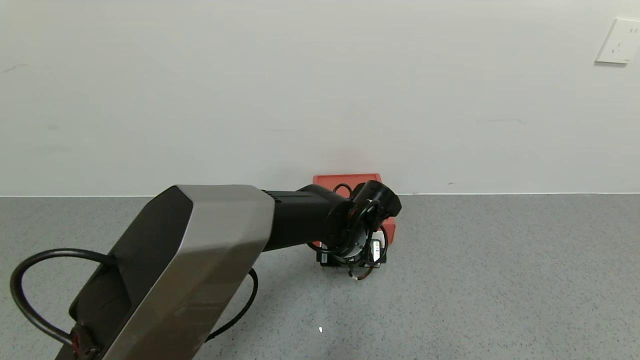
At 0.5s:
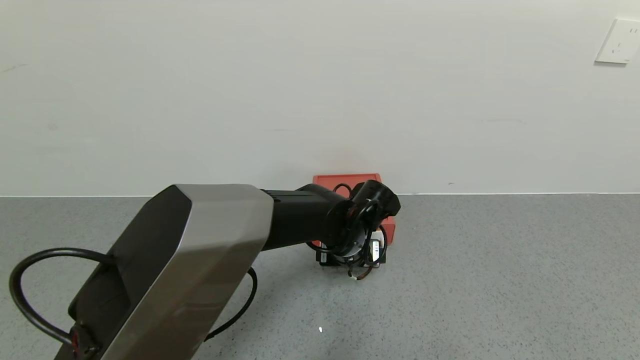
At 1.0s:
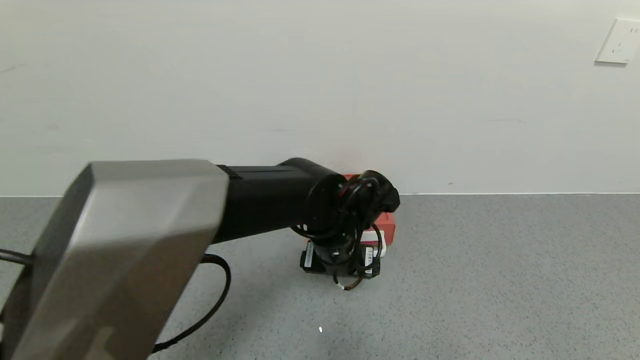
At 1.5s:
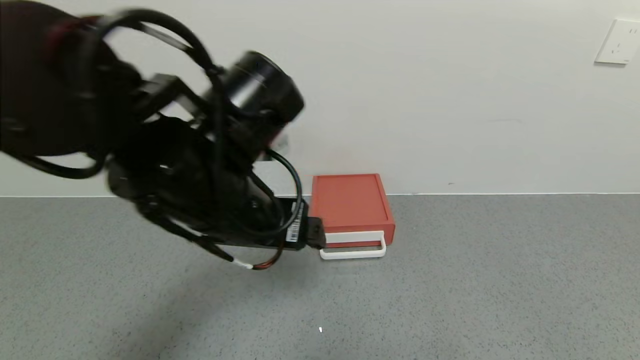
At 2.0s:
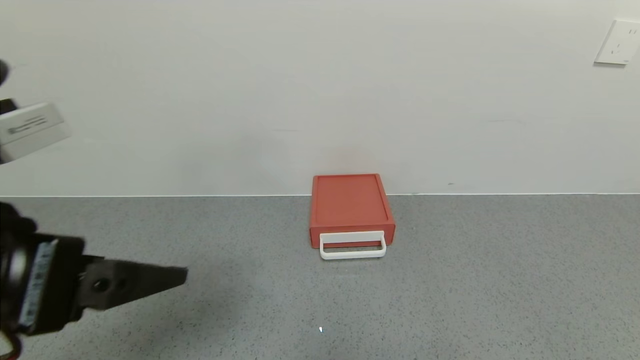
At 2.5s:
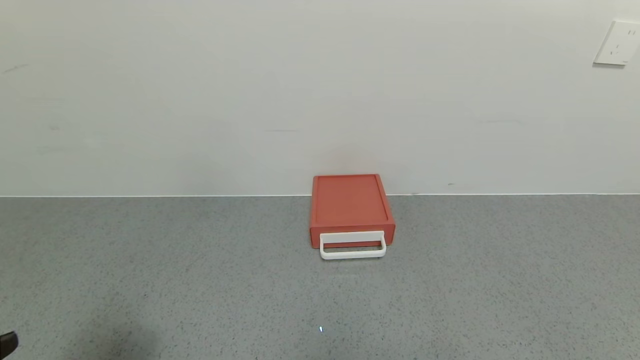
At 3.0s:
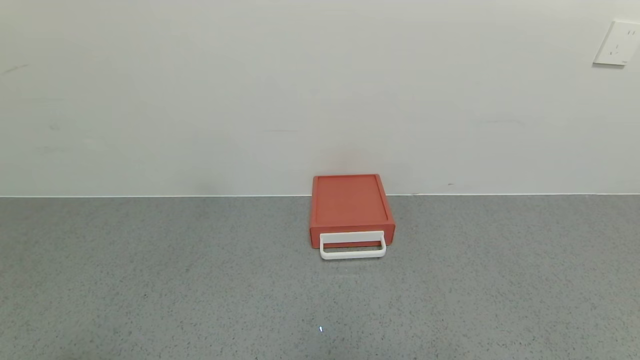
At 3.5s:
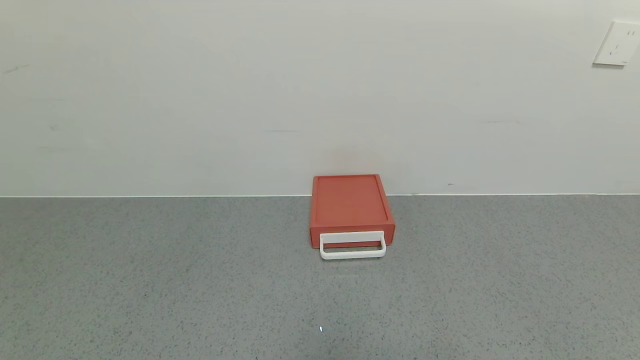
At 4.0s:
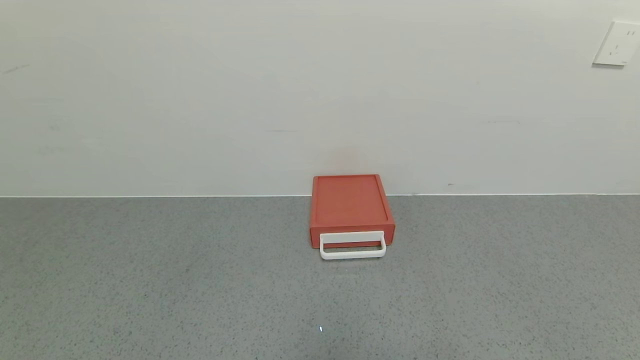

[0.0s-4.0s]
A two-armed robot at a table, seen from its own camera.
Task of the whole recording: use the gripper to open the drawer and close the red drawer.
0.0s to 2.0s: The left gripper shifts about 40 cm backward, to the left and upward.
2.0s to 4.0s: The left gripper heads downward, backward and to the left, covering approximately 25 cm.

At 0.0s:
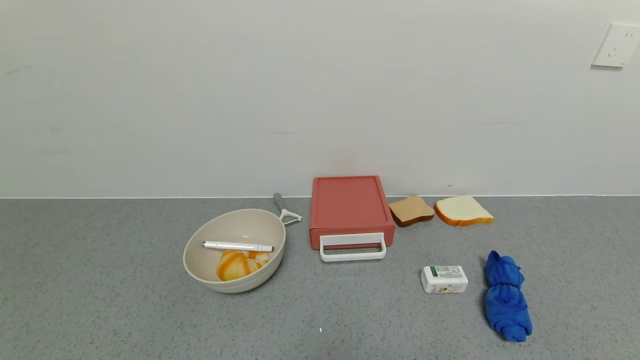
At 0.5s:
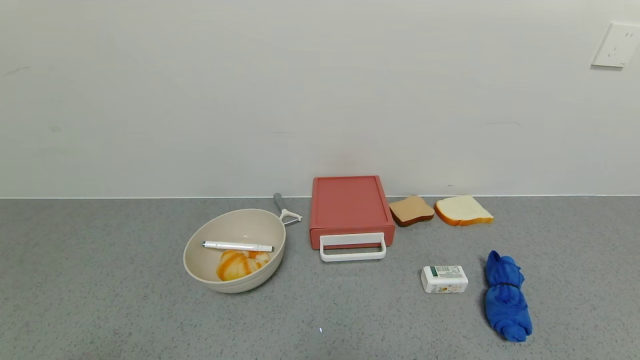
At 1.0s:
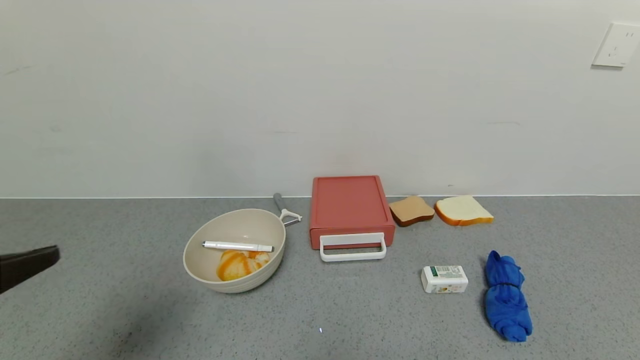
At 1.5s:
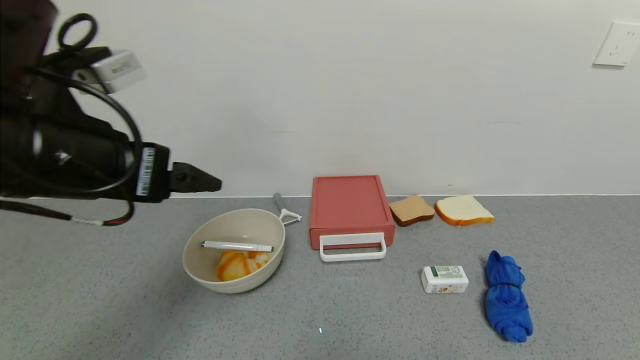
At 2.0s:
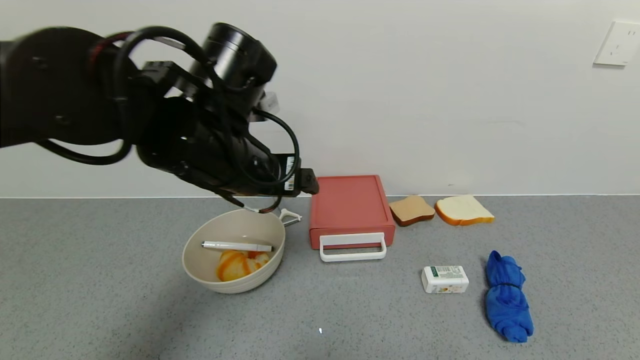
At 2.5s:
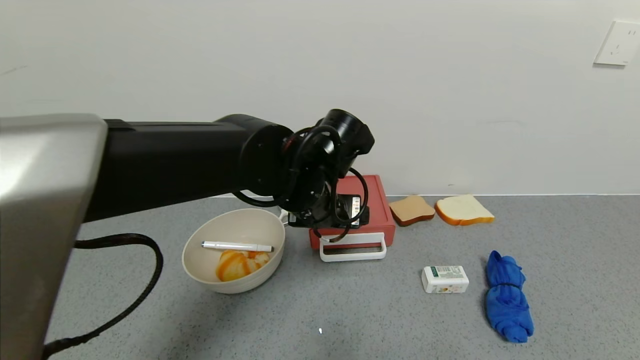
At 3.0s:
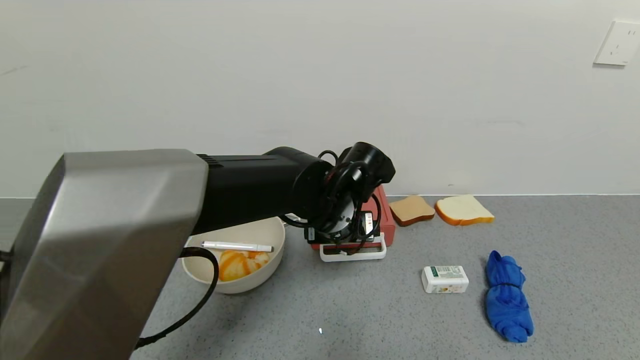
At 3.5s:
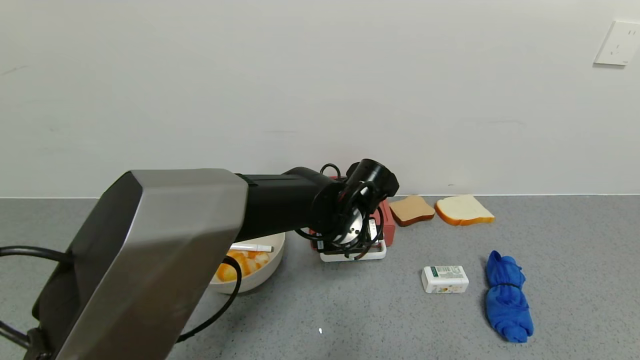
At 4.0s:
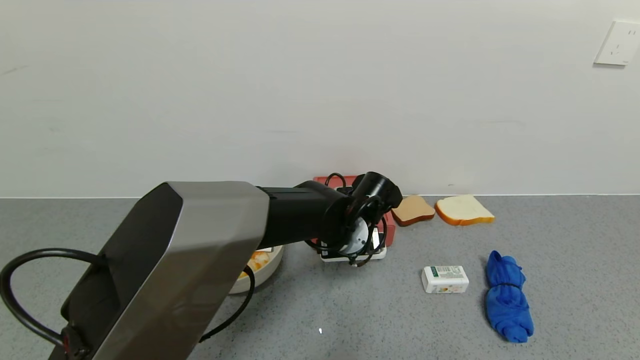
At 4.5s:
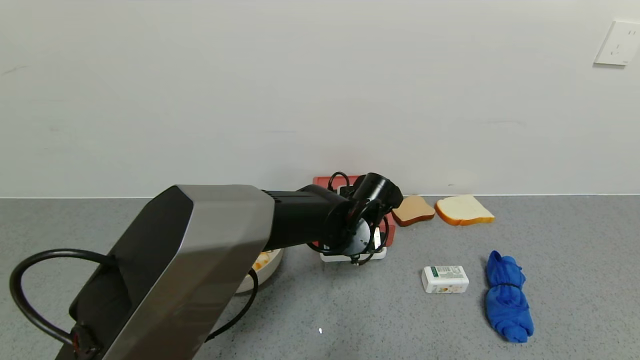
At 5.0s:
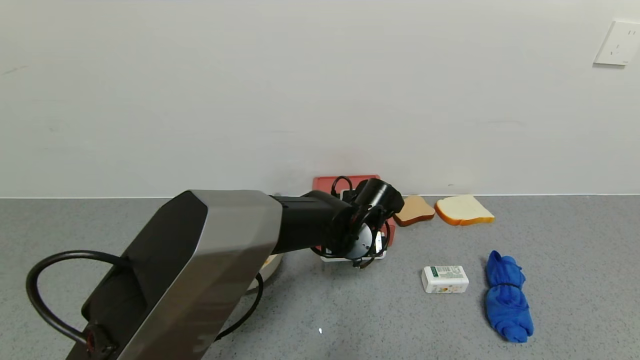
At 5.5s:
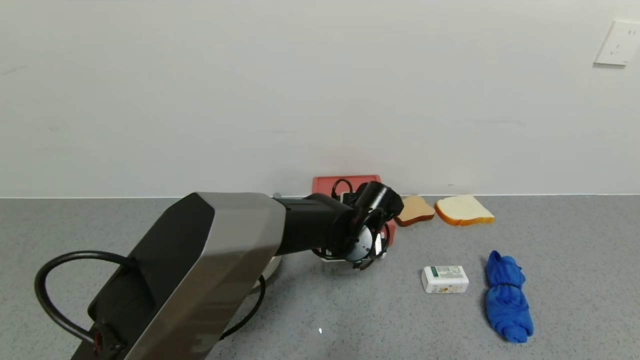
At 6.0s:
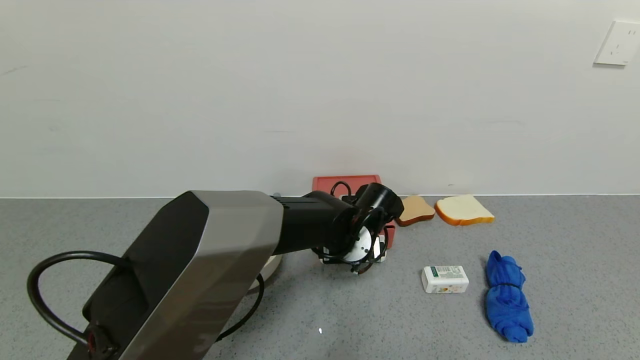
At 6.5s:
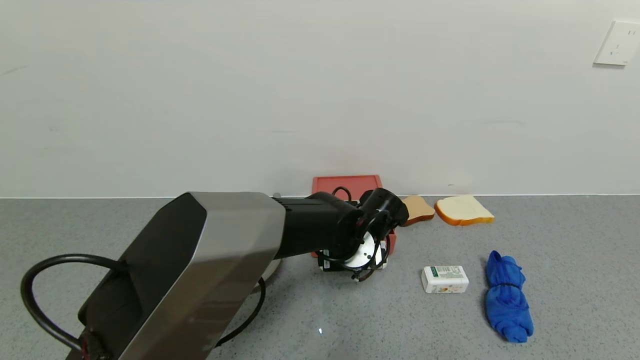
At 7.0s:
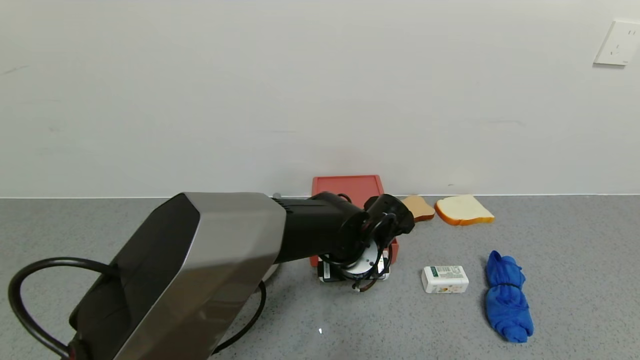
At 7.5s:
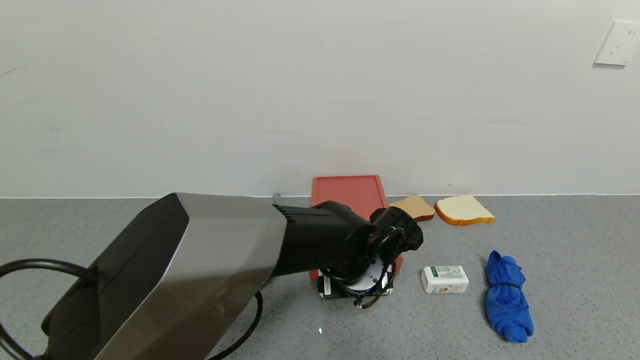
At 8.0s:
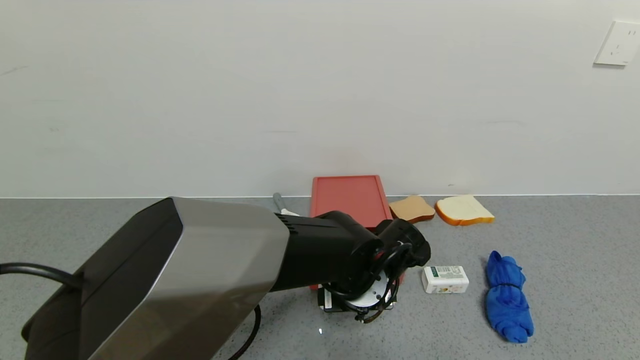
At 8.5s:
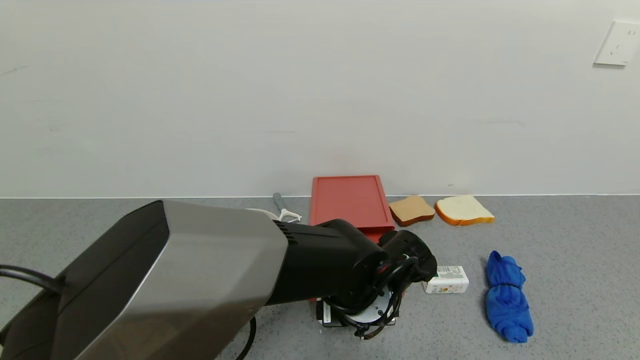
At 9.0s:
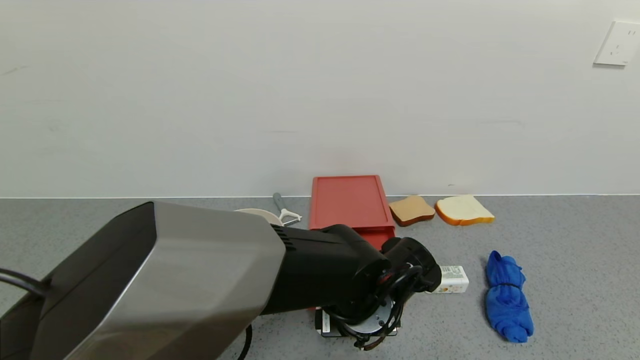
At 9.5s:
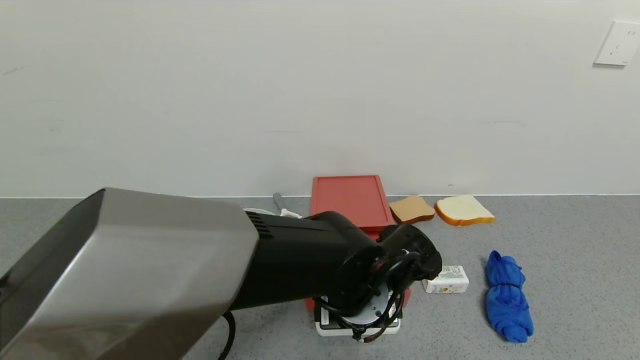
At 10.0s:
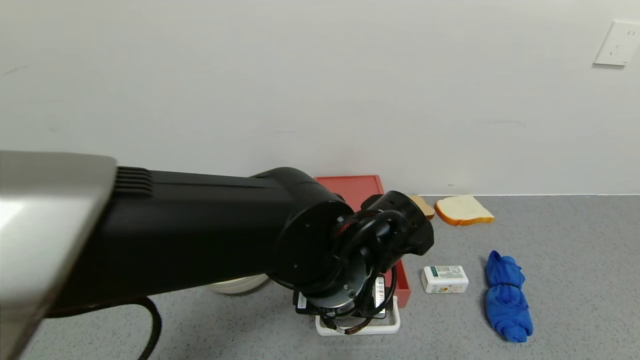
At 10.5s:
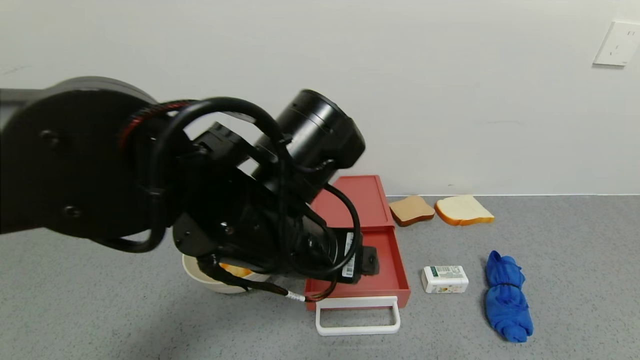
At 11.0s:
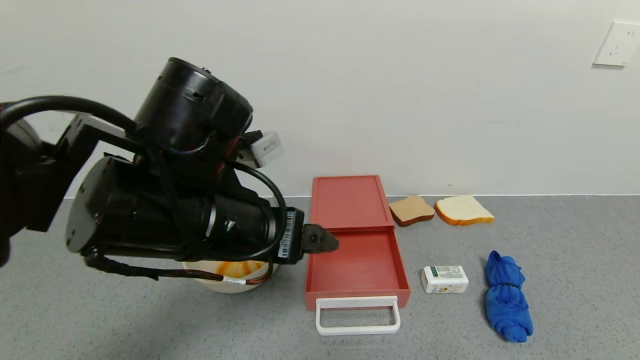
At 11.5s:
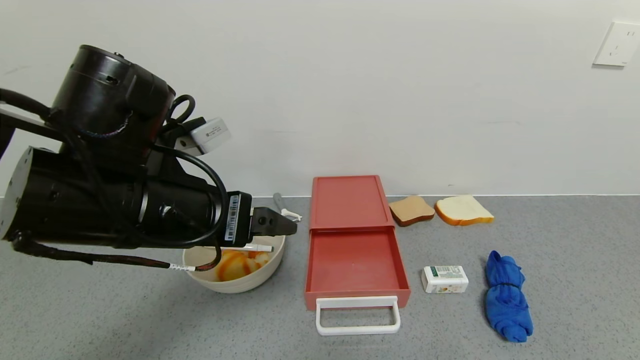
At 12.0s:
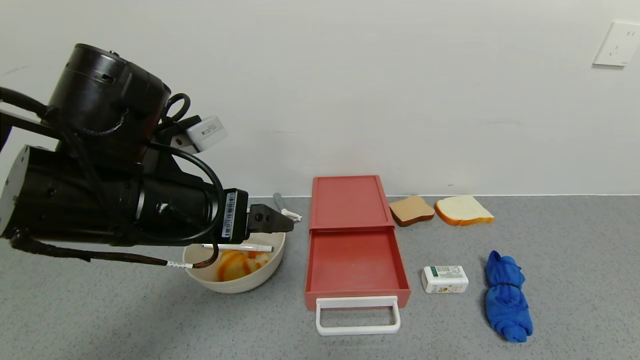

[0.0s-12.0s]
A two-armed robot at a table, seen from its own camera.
Task of the whole recording: use the gripper to open the drawer and close the red drawer.
Step, 0.0s to 10.0s: Open the red drawer with left gripper.
0.0s to 2.0s: The left gripper is displaced forward, upward and to the right by about 40 cm.
2.0s to 4.0s: The left gripper goes about 20 cm downward, to the right and forward.
4.0s to 6.0s: The grippers stay close to where they were, moving slightly.
6.0s to 8.0s: The left gripper travels backward by roughly 10 cm.
8.0s to 10.0s: The left gripper heads upward, covering about 10 cm.
10.0s to 12.0s: The left gripper moves to the left and upward, roughly 20 cm.

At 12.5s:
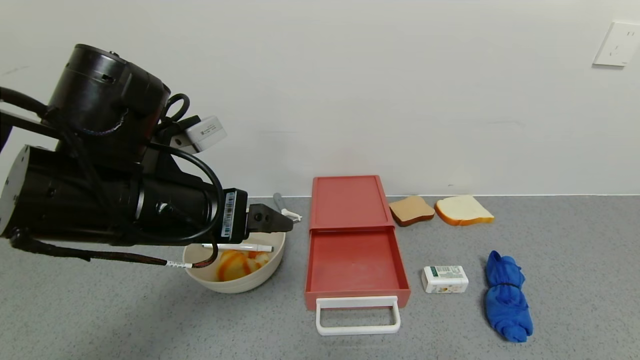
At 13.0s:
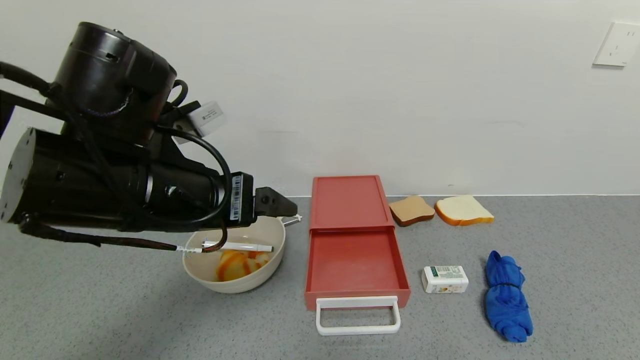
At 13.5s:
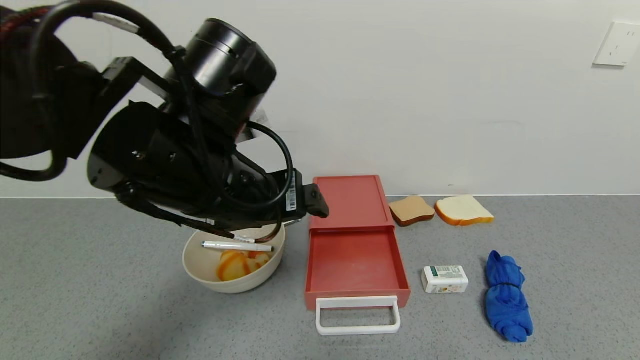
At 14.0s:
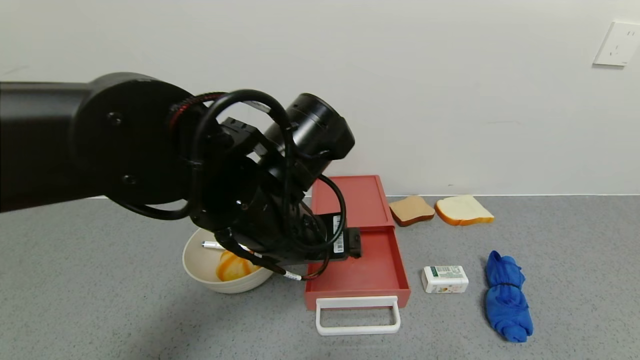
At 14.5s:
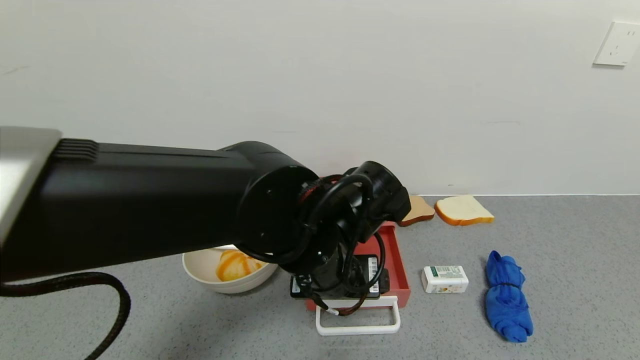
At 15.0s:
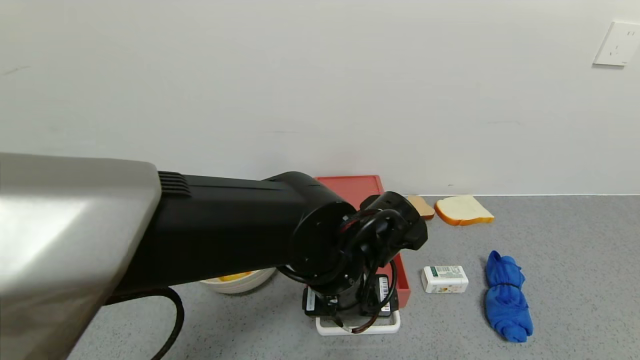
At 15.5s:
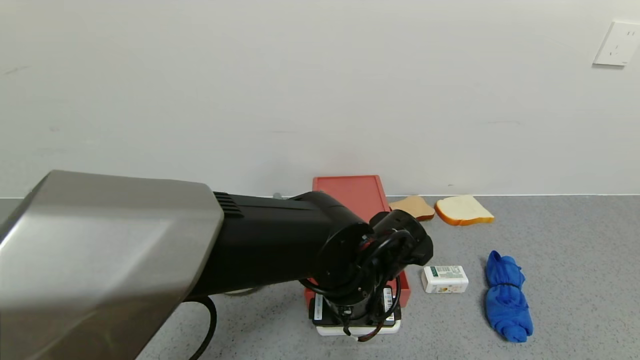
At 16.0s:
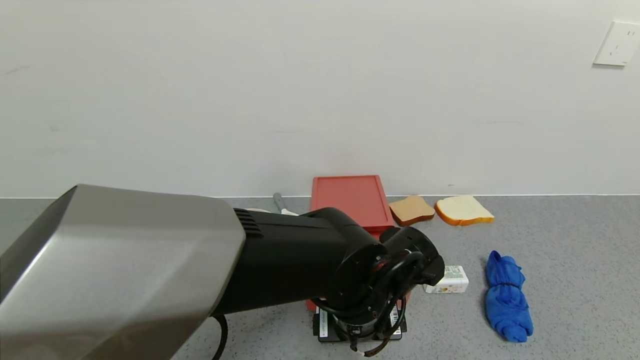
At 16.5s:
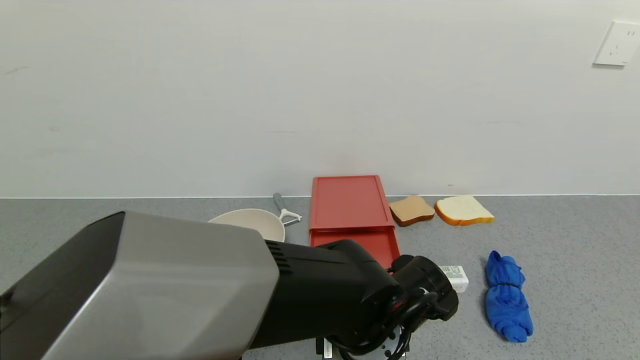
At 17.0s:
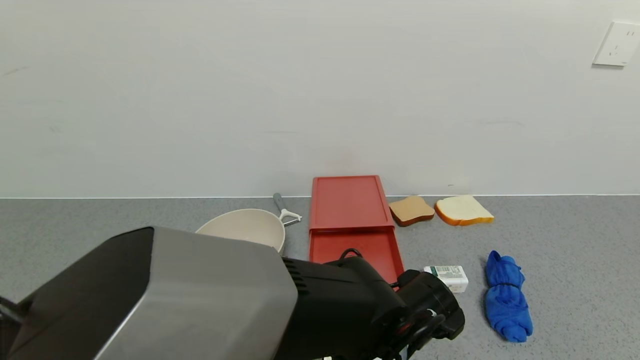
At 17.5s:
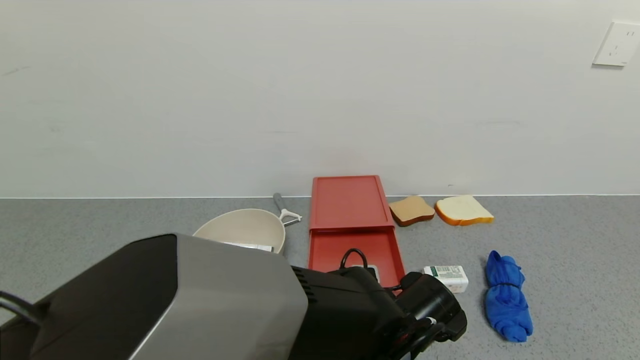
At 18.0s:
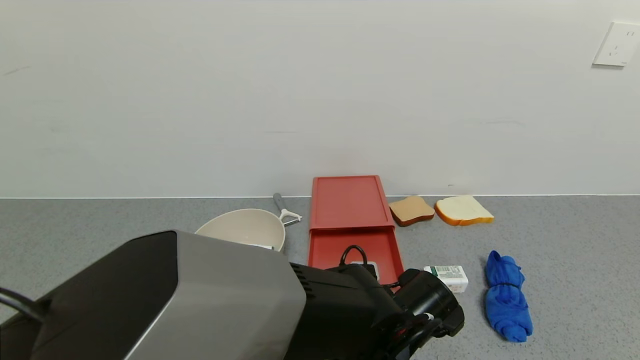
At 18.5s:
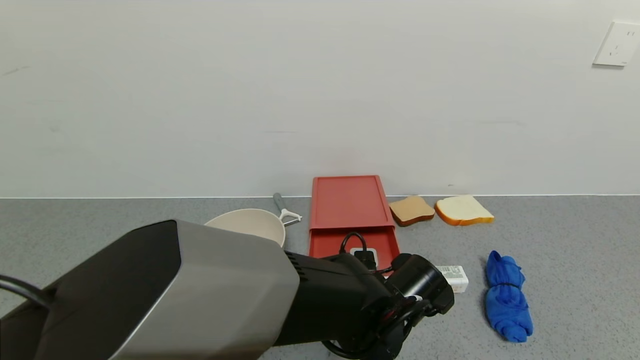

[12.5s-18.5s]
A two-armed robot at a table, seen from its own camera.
Task of the whole recording: use the gripper to open the drawer and close the red drawer.
12.5s to 14.5s: The left gripper travels to the right and downward by approximately 15 cm.
14.5s to 16.5s: The left gripper shifts roughly 10 cm downward.
16.5s to 18.5s: The grippers move only a little.
